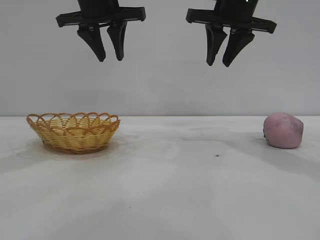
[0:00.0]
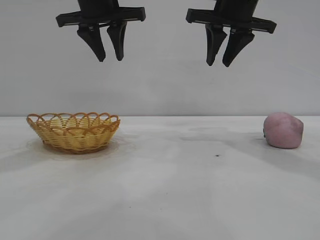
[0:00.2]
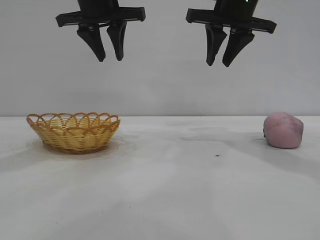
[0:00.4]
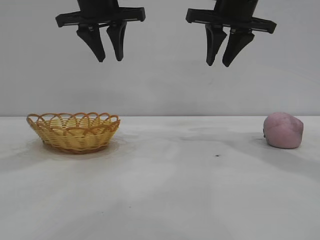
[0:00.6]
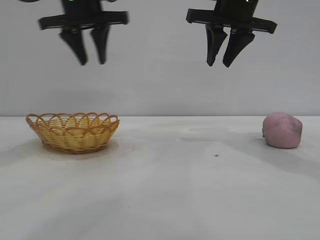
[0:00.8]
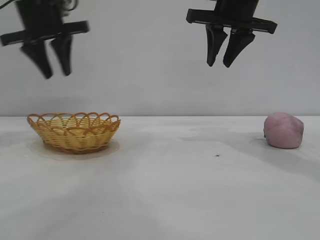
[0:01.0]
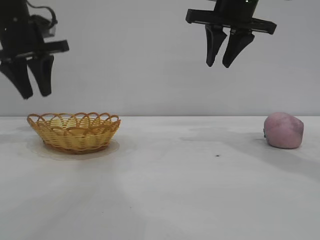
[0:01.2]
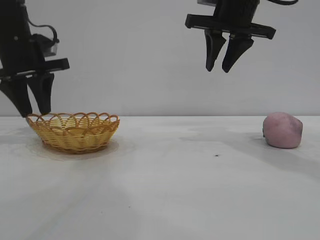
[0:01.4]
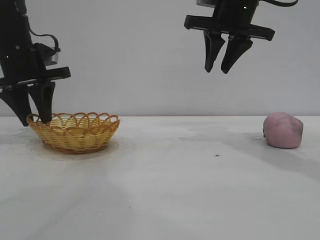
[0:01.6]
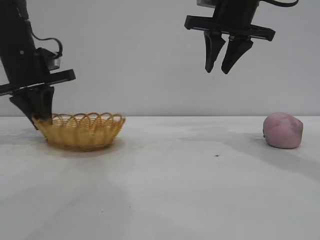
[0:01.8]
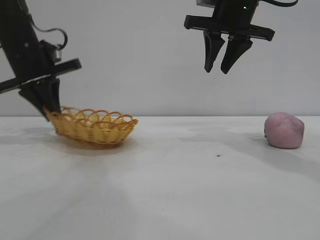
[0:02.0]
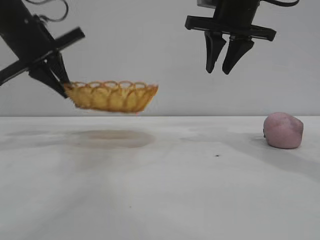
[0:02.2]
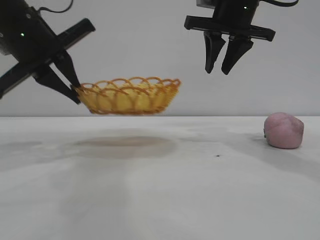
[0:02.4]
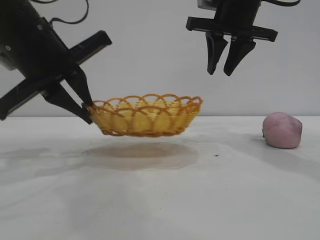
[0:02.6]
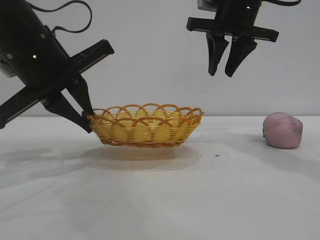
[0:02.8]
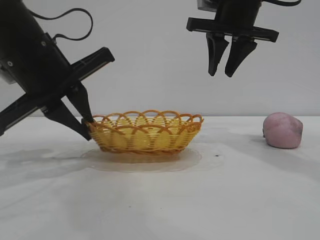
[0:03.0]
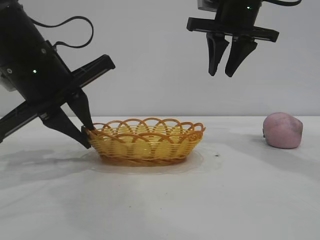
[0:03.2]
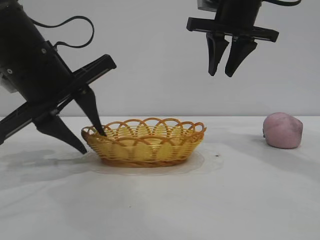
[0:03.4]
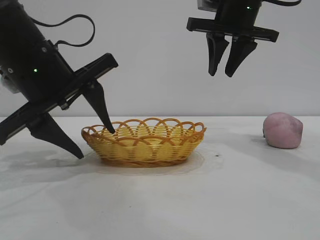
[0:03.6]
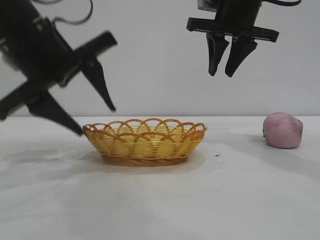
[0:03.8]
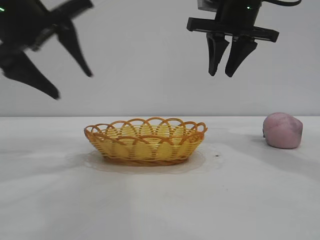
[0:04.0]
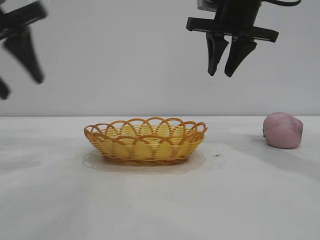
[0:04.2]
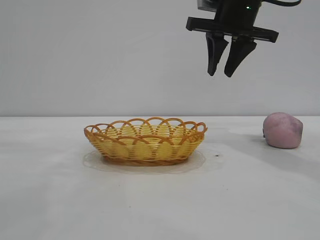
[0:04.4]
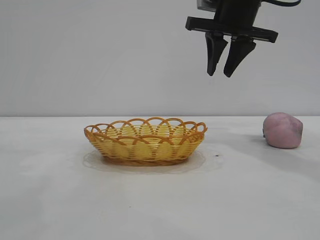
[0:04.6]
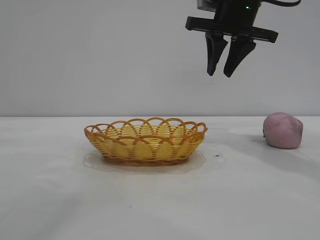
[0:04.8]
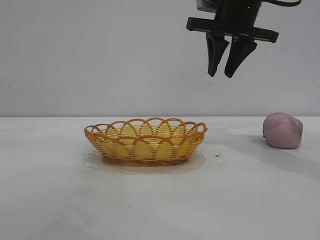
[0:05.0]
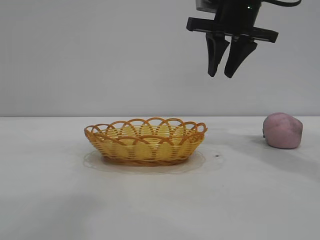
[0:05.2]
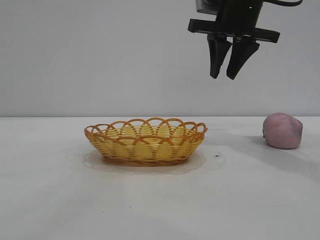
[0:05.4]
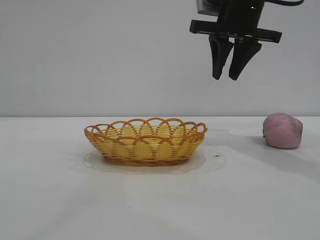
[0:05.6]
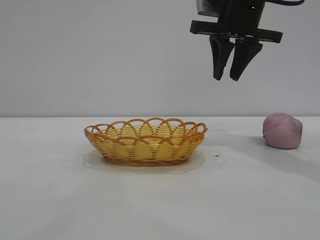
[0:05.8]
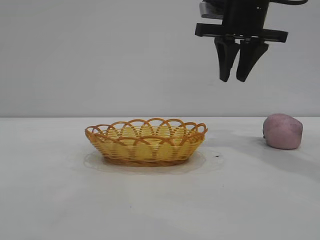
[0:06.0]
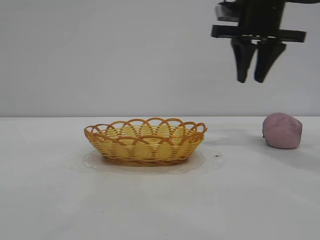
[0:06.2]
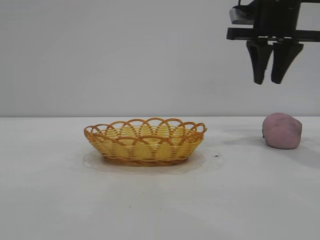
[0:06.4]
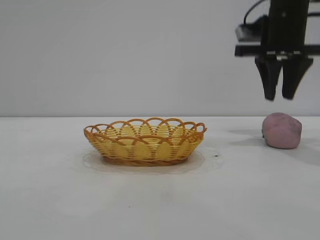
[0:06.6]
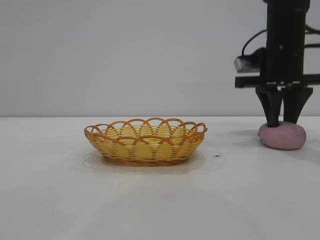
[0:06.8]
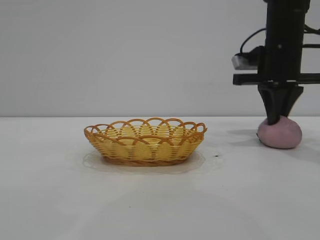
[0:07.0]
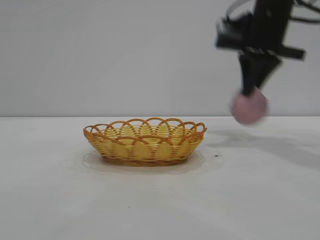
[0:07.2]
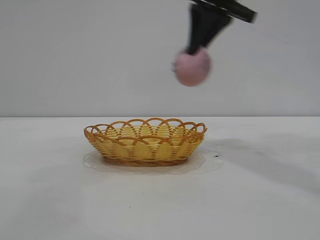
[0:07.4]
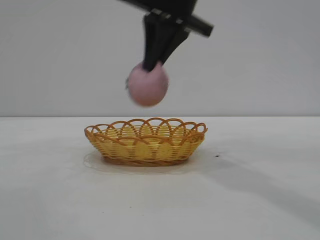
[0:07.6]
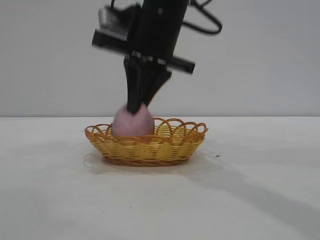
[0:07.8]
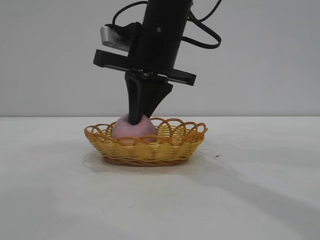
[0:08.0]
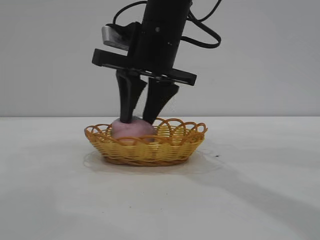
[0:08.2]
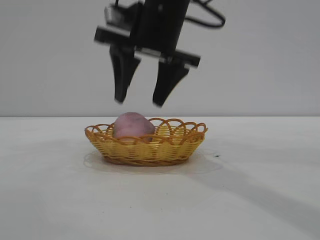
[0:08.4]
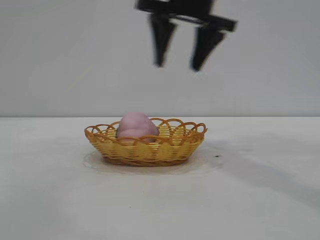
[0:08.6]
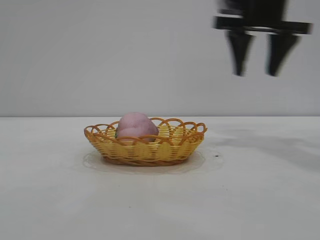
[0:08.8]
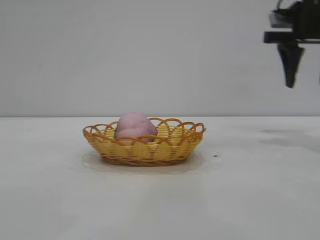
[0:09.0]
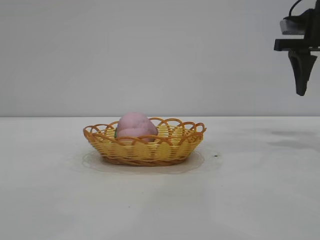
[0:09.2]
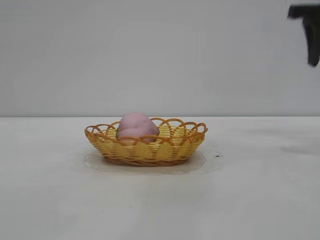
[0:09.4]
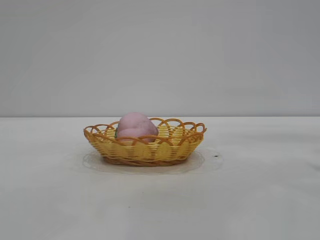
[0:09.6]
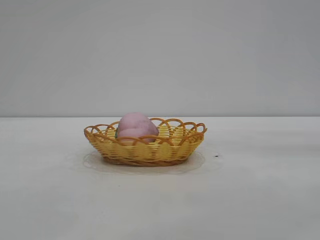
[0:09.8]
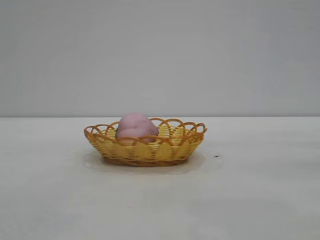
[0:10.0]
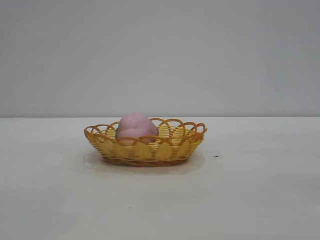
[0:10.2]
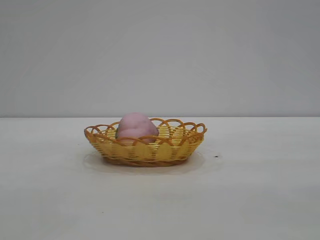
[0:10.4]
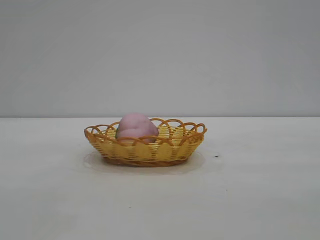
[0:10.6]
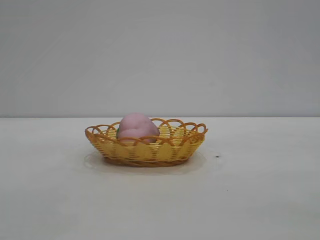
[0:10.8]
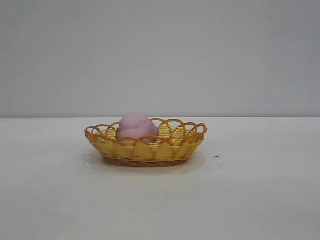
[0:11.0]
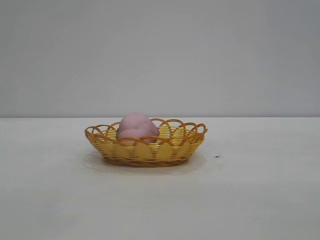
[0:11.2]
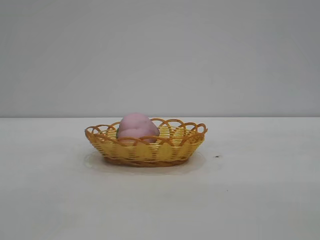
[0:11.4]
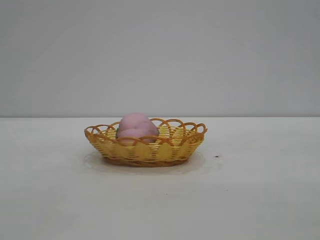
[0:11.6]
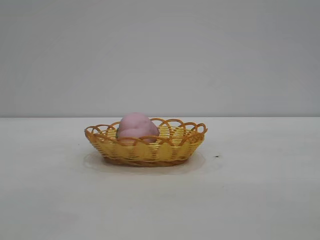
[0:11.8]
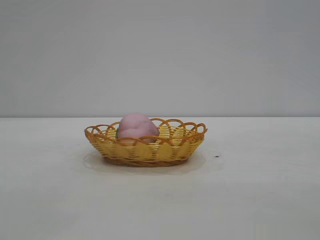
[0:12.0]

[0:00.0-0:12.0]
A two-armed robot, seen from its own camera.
Task of the whole recording: pick up the peach and put it into the basket.
Step, 0:00.0 to 0:03.8: Move the basket to the center of view.
Step, 0:04.0 to 0:07.2: Pick up the peach.
Step, 0:07.4 to 0:08.4: place the peach into the basket.

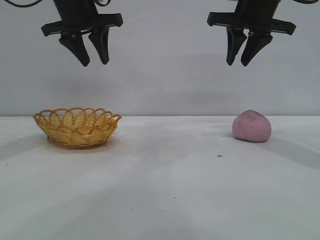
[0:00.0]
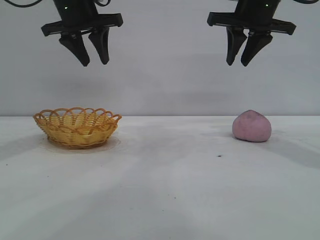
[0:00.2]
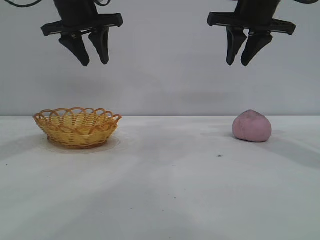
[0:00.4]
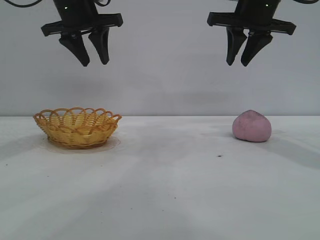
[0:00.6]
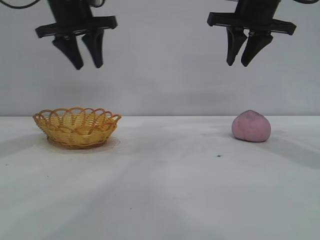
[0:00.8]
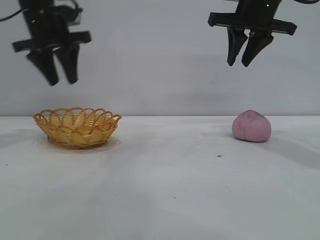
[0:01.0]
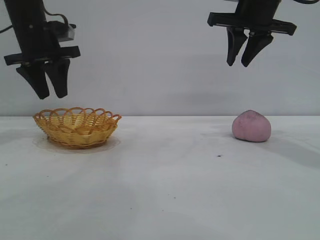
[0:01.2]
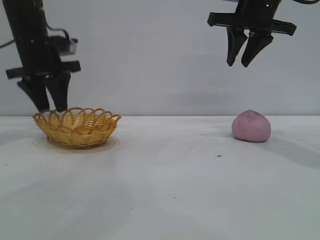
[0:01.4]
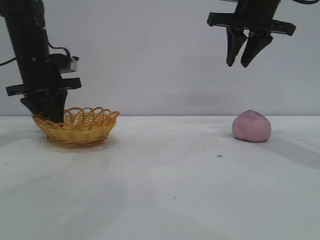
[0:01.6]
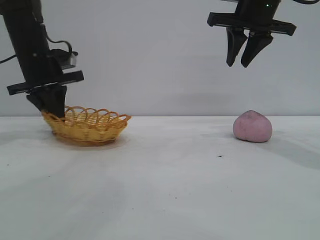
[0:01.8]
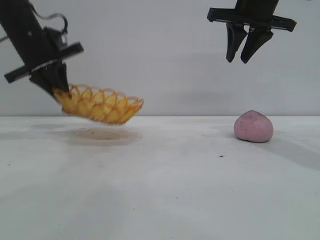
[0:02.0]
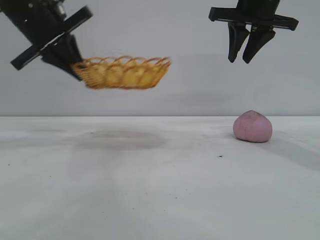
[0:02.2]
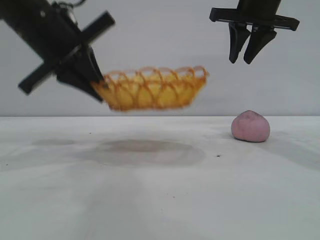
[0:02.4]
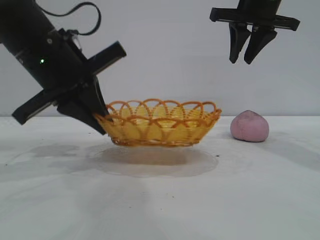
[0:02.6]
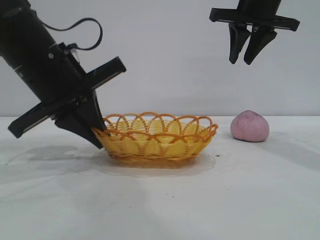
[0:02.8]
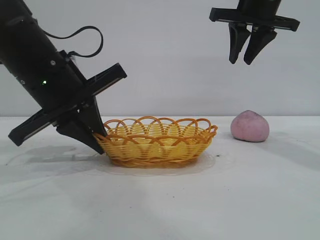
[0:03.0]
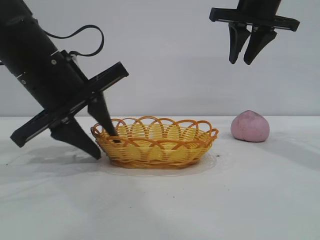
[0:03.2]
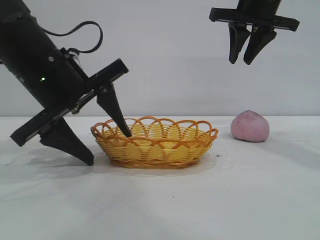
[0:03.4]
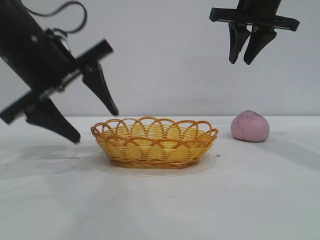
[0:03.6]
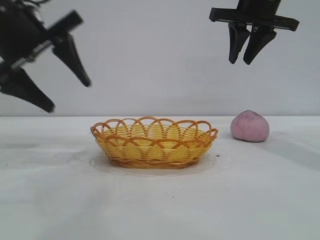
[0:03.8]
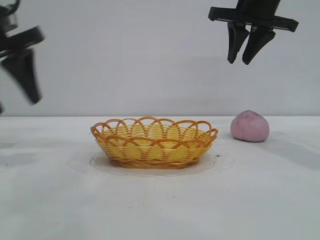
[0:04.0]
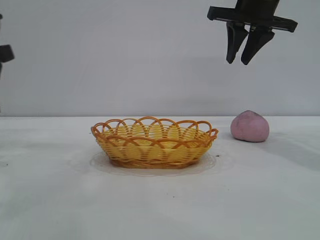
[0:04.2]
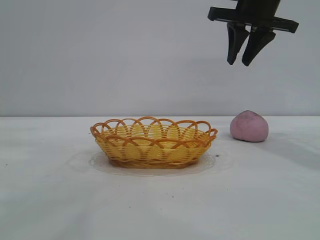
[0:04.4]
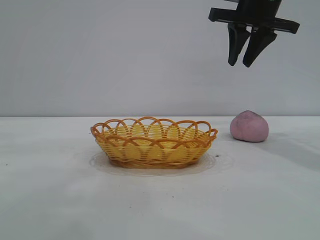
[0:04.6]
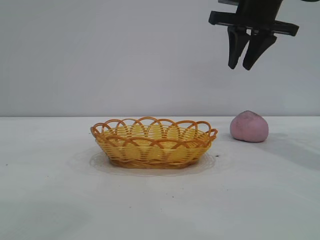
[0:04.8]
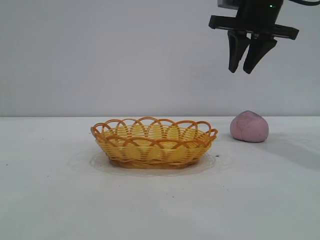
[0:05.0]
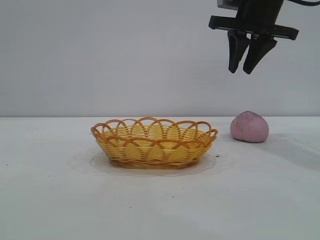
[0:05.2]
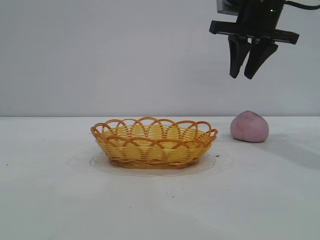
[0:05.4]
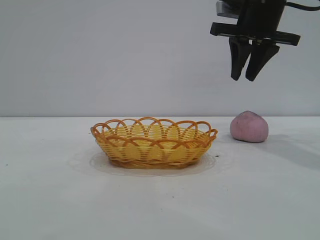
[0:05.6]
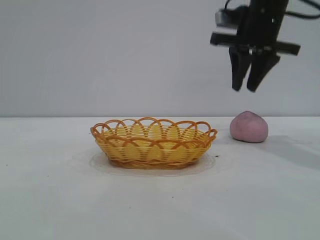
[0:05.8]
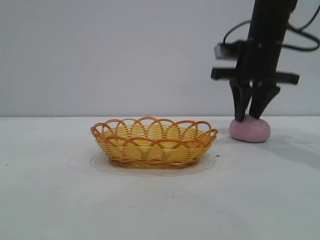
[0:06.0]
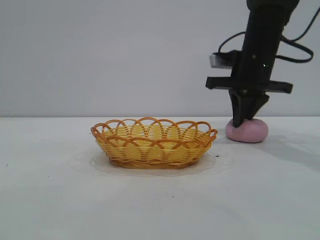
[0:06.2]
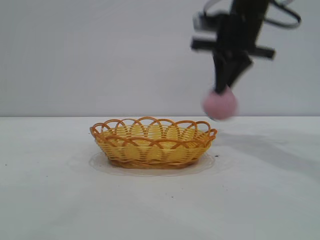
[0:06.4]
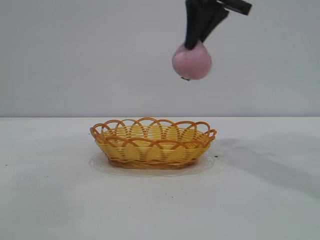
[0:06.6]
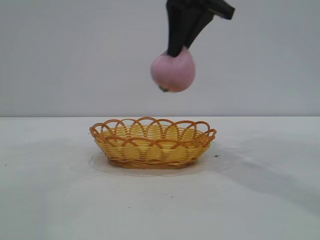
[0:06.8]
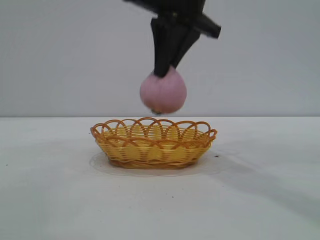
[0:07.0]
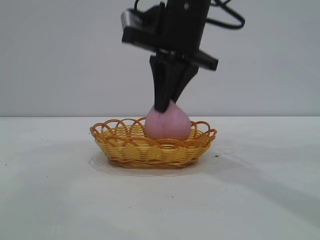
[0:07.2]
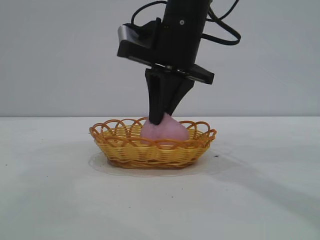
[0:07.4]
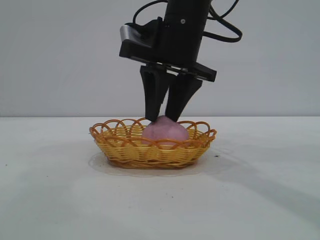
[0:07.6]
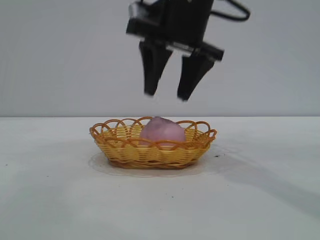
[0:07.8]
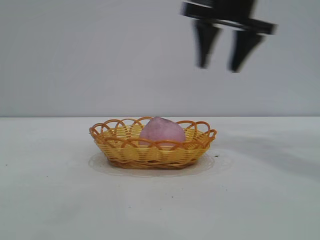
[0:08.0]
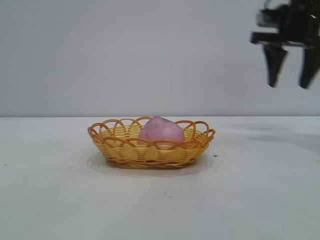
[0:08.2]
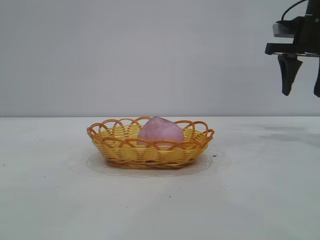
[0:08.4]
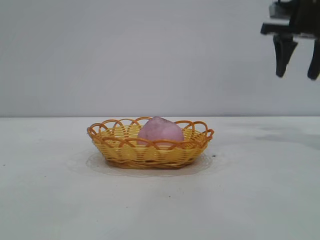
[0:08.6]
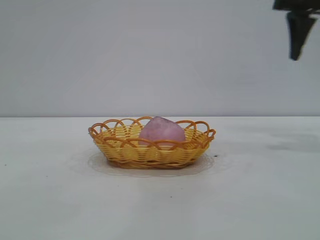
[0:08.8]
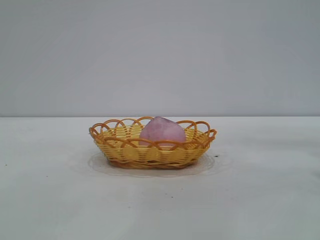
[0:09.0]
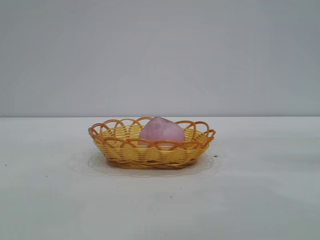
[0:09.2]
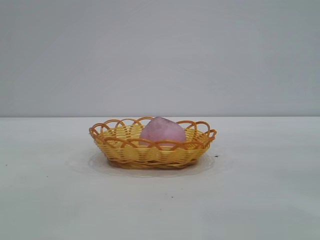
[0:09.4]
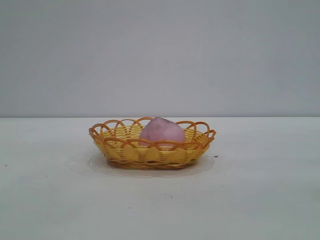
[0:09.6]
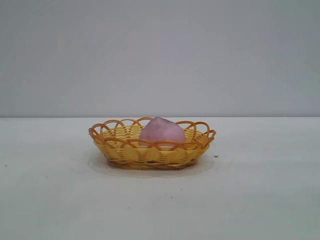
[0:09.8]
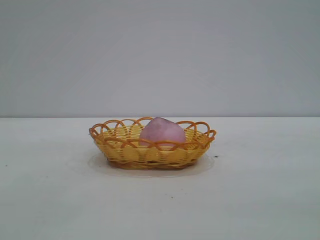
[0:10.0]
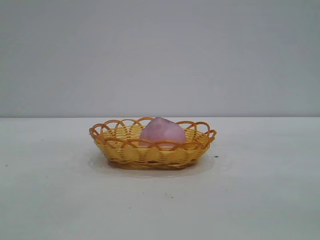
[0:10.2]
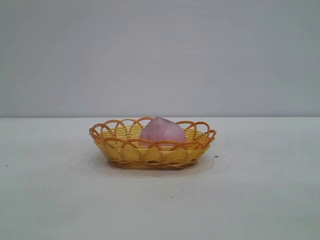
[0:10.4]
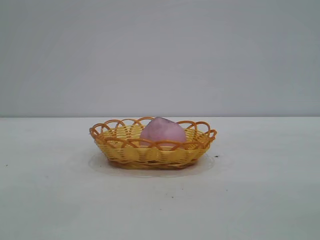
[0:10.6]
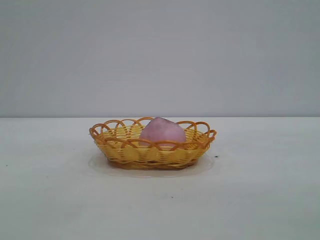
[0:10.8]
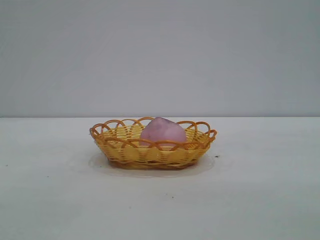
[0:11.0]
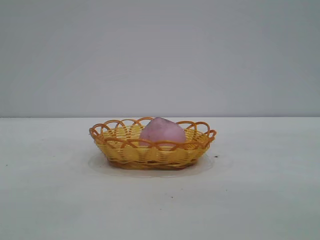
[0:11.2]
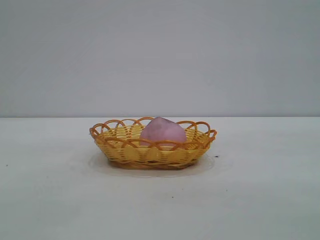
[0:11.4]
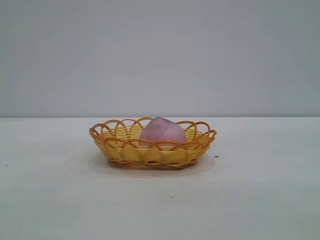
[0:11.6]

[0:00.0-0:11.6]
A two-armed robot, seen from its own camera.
Task of the whole recording: pick up the peach and put it into the basket.
Step, 0:00.0 to 0:03.6: Move the basket to the center of view.
Step, 0:03.8 to 0:06.2: Pick up the peach.
Step, 0:06.4 to 0:07.8: place the peach into the basket.
